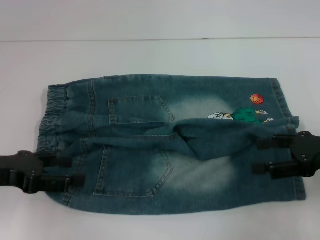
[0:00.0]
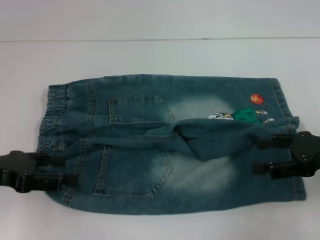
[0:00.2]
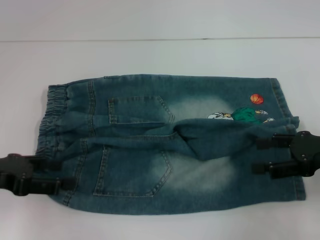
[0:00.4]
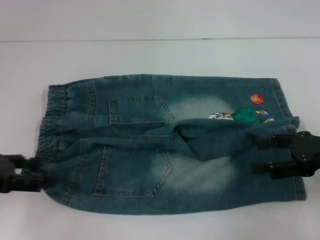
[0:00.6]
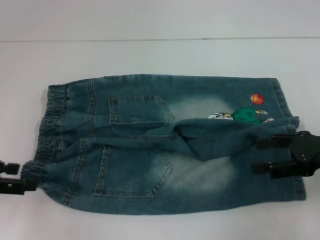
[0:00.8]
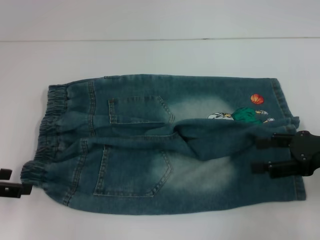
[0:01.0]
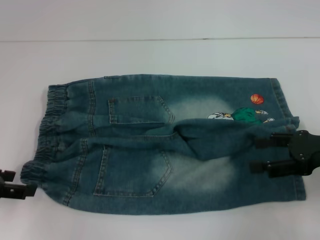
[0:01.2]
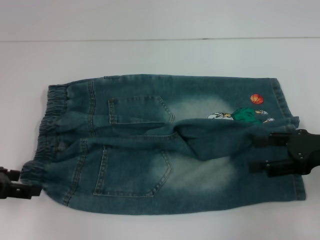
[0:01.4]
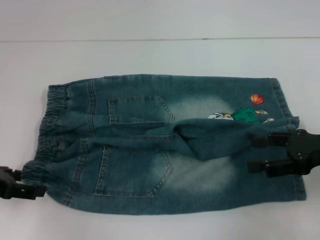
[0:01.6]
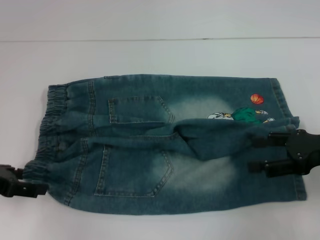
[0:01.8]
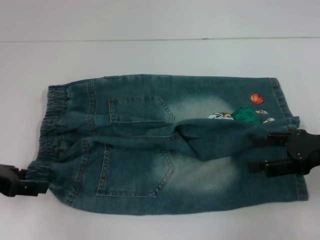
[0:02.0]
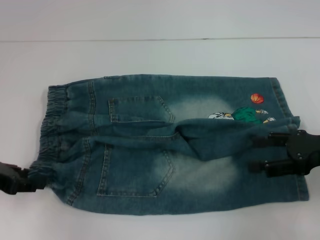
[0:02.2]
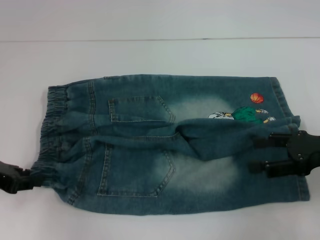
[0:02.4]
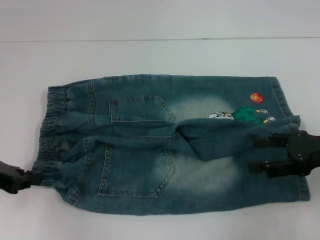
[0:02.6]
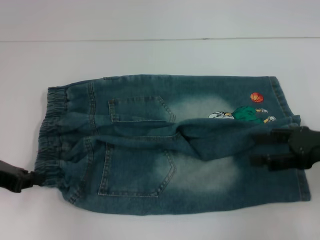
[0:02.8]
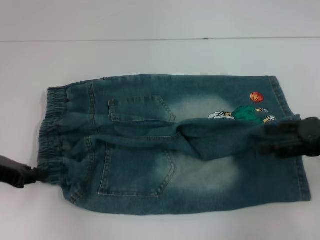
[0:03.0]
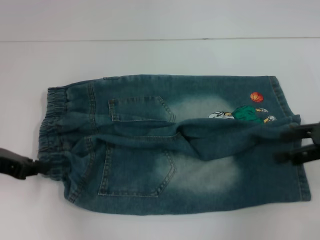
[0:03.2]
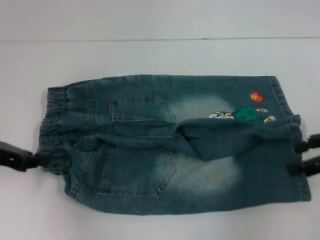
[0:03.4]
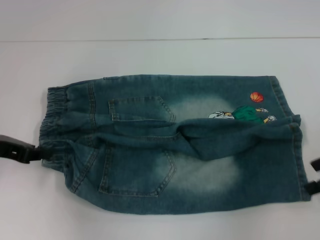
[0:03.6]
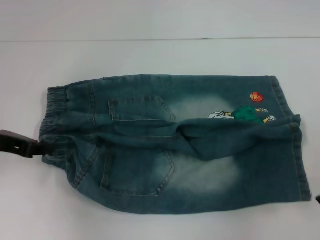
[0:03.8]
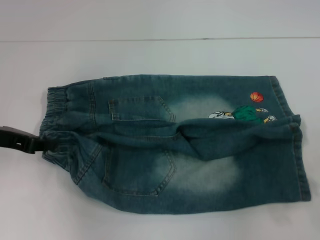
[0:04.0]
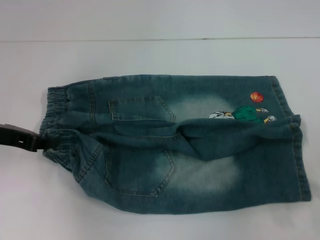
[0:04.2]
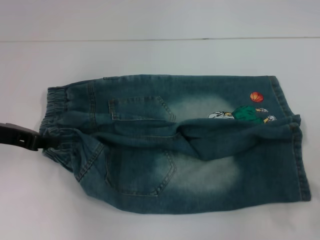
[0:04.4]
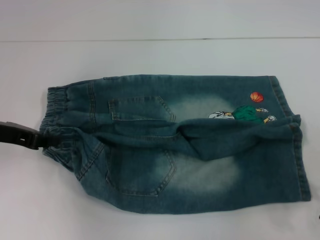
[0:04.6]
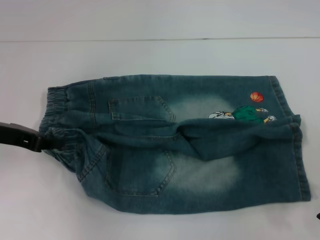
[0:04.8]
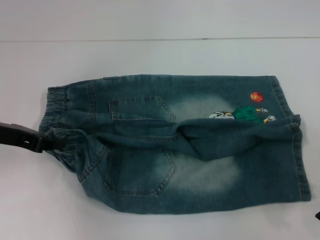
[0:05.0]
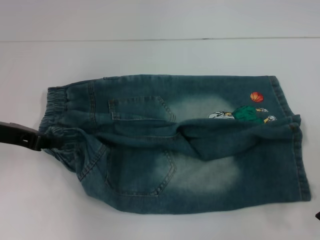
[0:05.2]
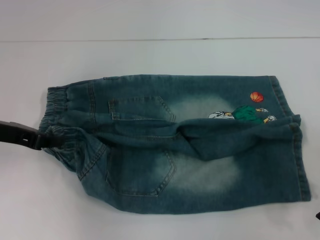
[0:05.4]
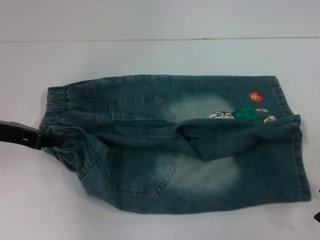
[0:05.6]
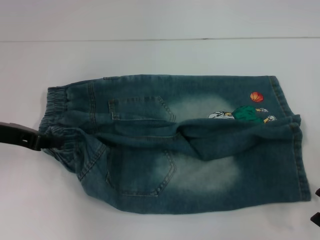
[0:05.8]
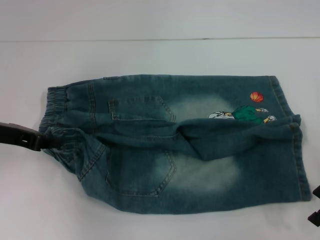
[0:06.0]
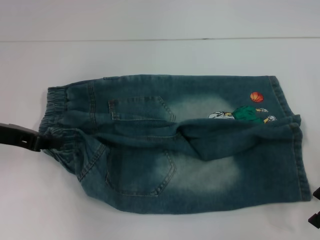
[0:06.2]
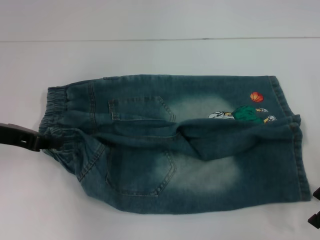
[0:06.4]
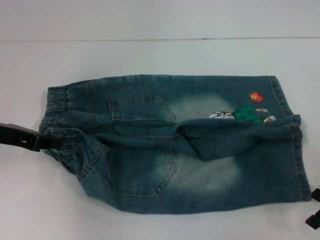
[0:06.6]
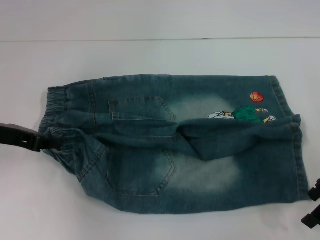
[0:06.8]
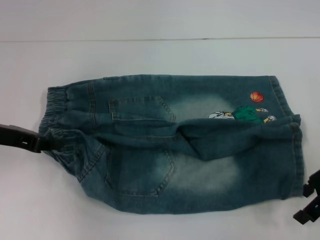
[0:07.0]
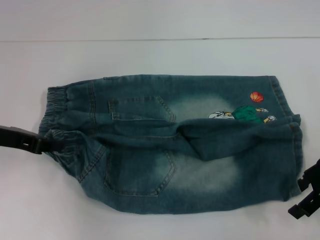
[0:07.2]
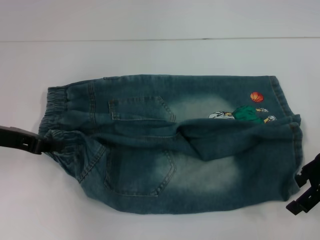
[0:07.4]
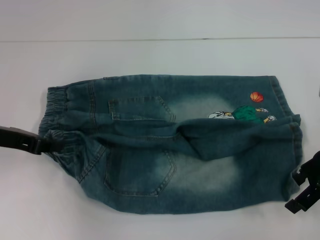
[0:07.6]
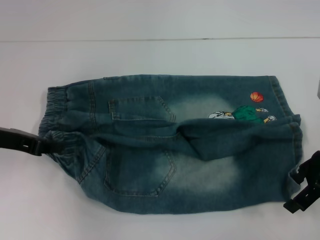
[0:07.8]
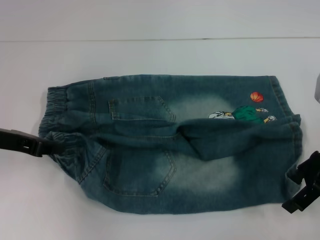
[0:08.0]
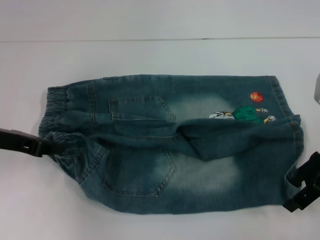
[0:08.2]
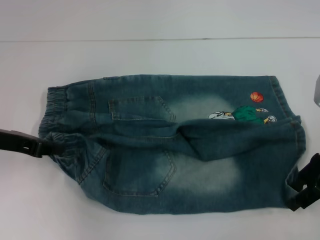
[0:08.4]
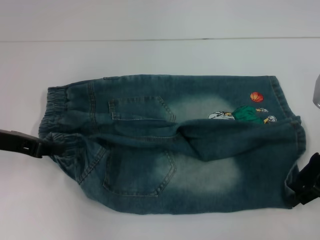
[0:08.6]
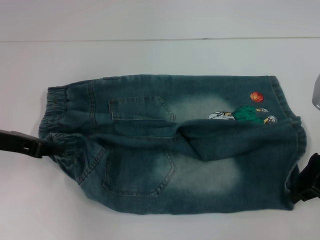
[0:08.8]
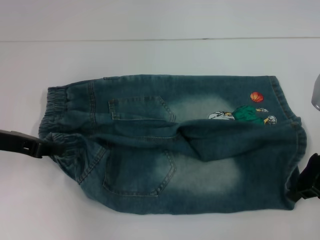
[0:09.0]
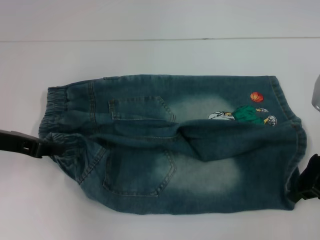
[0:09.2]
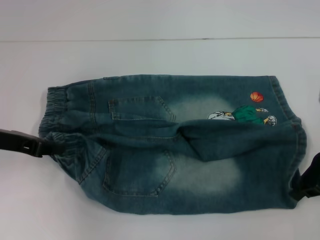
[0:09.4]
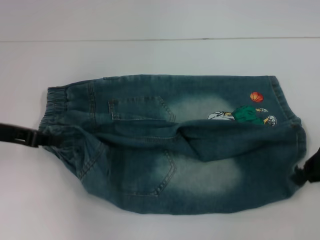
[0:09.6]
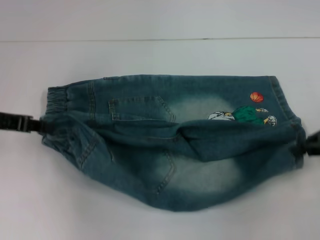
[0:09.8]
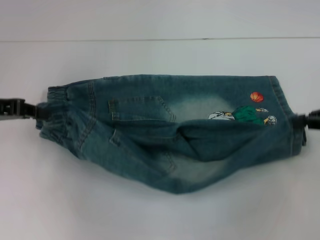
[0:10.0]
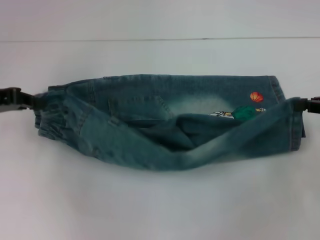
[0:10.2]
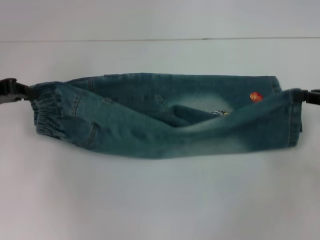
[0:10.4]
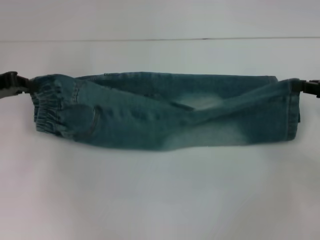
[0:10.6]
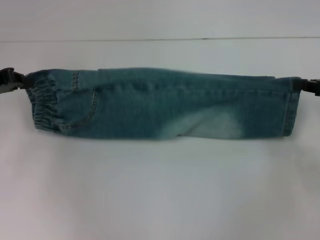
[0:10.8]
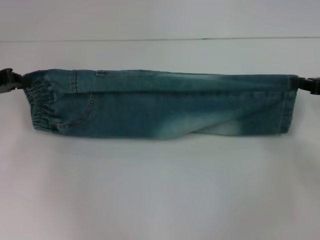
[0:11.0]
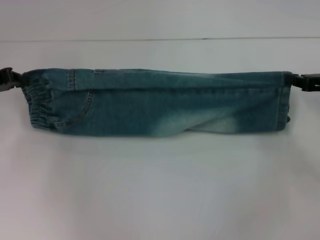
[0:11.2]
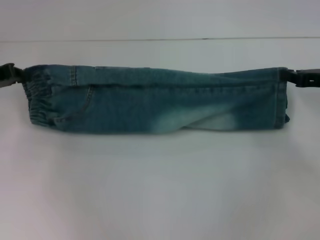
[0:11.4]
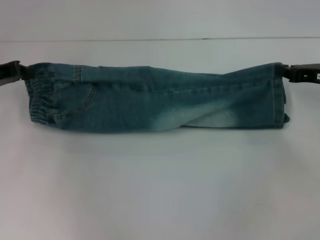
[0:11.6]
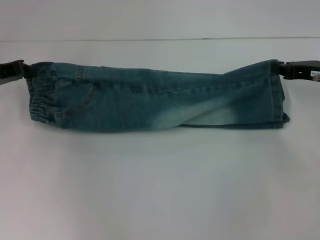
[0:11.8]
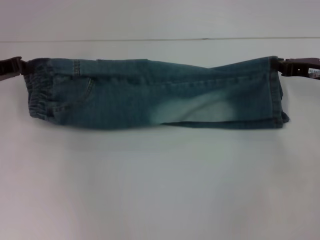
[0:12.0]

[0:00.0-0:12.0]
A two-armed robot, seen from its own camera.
Step, 0:00.0 to 0:02.4: Hold the lower left waistband with your left hand.
Step, 0:02.6 to 0:08.6: Grab the lower right pant leg with your right hand.
0:01.6 to 0:03.0: The left gripper closes up.
0:03.0 to 0:04.4: The left gripper ends up roughly 5 cm from where it was.
0:06.0 to 0:07.6: There are only small adjustments of the grippers.
0:07.6 to 0:09.0: The right gripper closes up.
0:09.0 to 0:10.4: The left gripper changes place by roughly 5 cm. Meanwhile the right gripper heads to the right, covering some 10 cm.
0:10.4 to 0:12.0: The right gripper travels forward and to the left by some 10 cm, while the left gripper ends up approximately 5 cm from where it was.

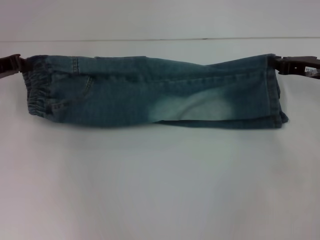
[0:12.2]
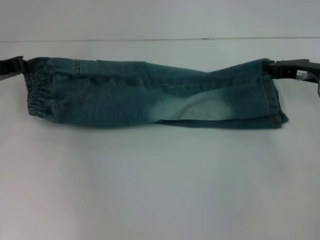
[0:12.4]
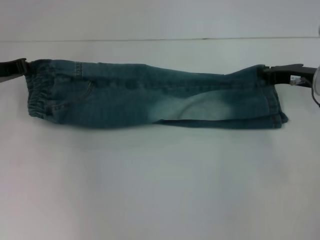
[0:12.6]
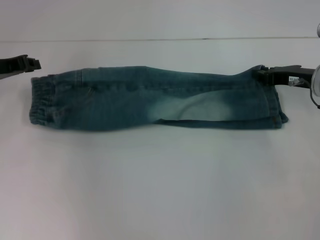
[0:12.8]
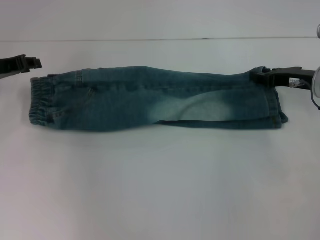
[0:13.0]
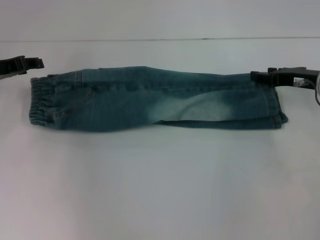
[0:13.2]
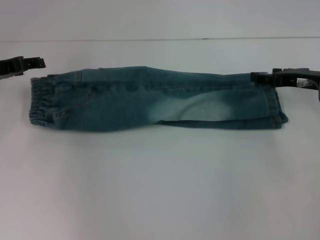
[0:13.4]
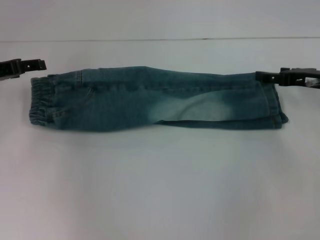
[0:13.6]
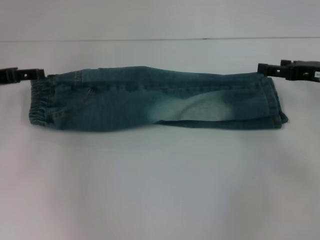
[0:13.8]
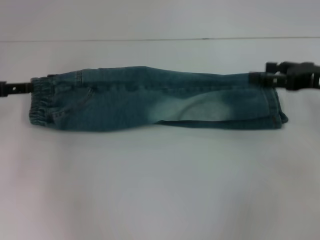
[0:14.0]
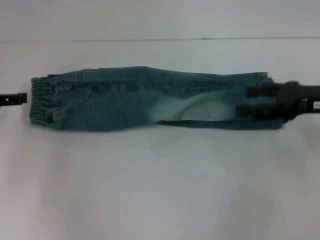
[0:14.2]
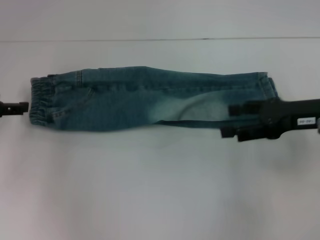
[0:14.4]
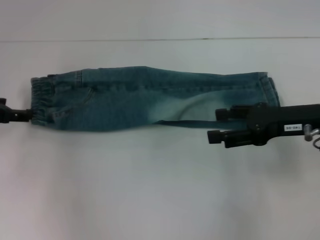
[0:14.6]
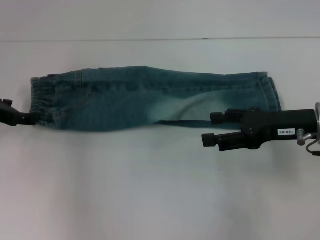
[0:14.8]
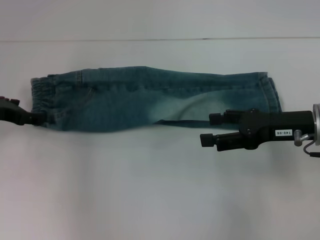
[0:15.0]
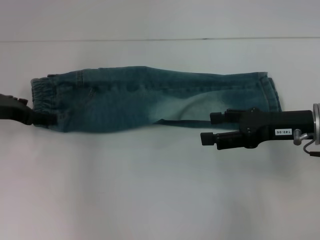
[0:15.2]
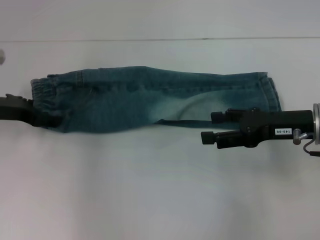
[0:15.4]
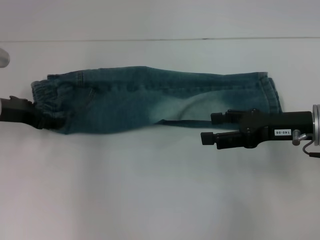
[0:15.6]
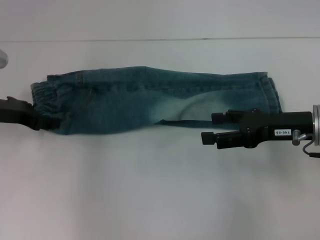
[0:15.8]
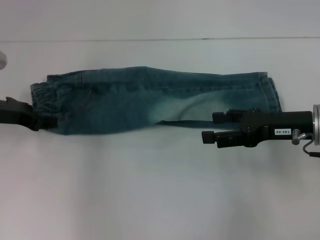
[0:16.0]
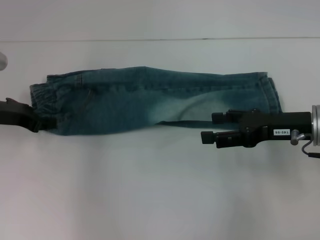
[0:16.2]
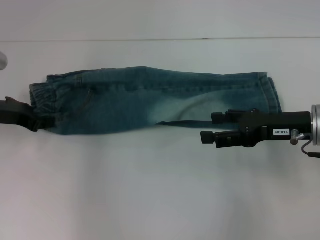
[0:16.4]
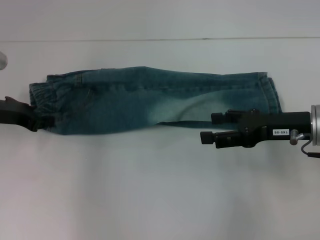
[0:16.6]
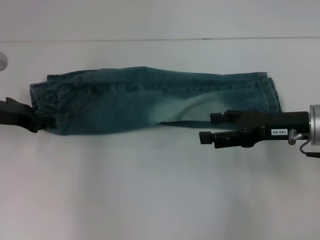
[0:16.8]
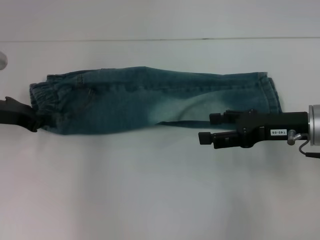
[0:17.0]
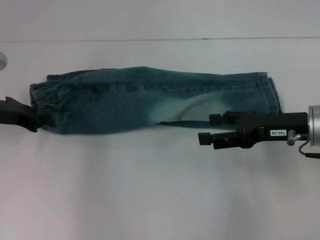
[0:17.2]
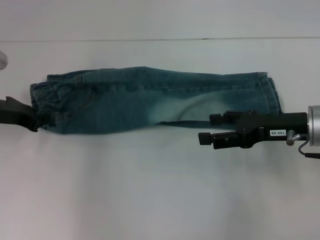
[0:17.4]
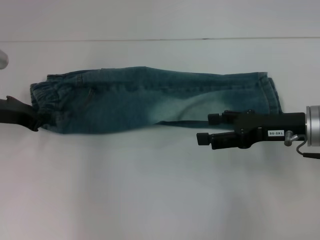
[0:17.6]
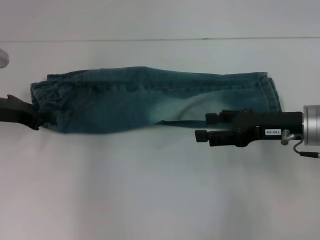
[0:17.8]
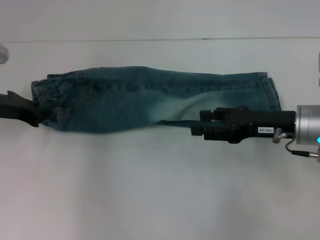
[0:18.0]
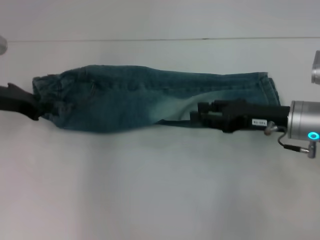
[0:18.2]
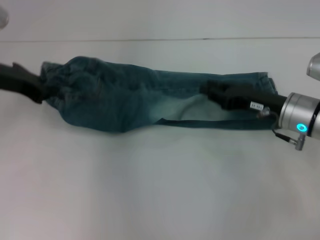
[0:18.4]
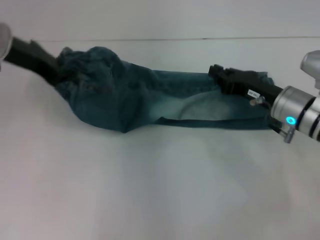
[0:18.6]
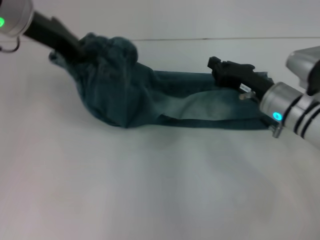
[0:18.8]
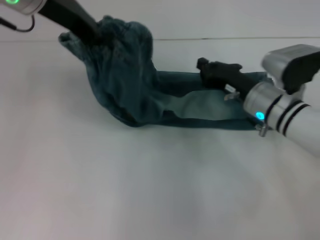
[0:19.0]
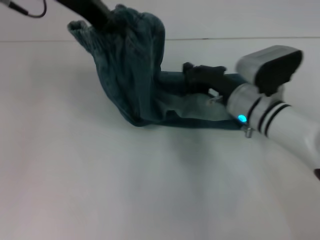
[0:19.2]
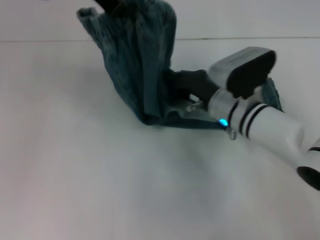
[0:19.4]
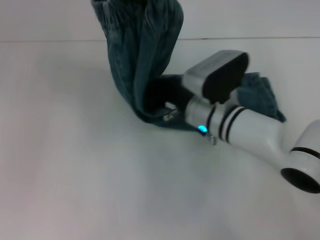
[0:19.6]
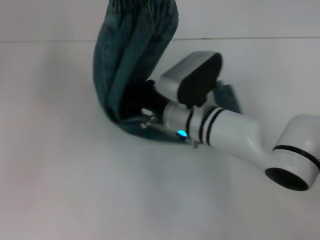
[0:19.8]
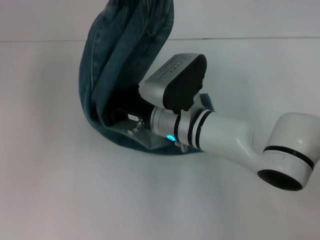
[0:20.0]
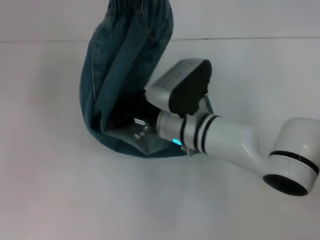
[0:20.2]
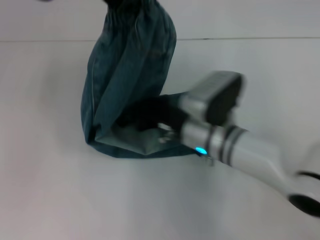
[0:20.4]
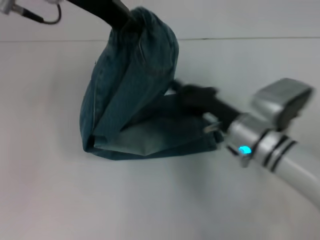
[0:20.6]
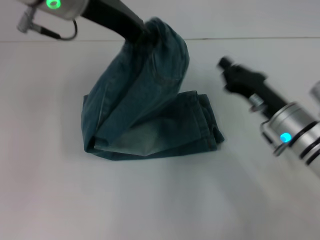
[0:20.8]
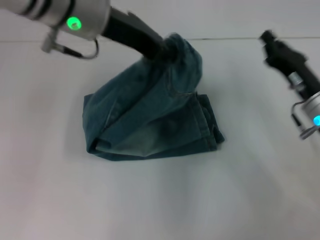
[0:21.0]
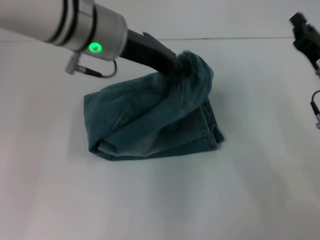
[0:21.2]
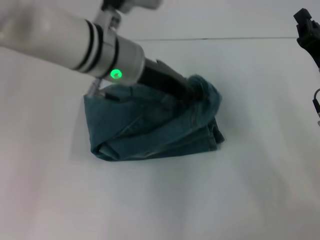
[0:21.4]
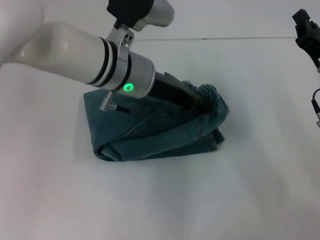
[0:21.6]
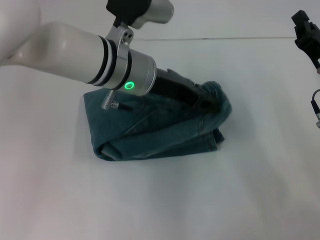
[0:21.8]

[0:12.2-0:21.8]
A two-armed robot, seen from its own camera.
Step, 0:13.2 to 0:16.4: Grab the waistband with your right hand.
Step, 0:16.8 to 0:20.2: Press the middle of the pants with your left hand.
Step, 0:20.4 to 0:21.8: Fold to the left with your right hand.
0:12.2 to 0:13.8: The left gripper opens its fingers. Meanwhile the right gripper opens up.
0:13.8 to 0:15.4: The left gripper changes place by about 5 cm, while the right gripper heads to the left and backward, covering about 10 cm.
0:15.4 to 0:17.0: The left gripper closes its fingers.
0:17.0 to 0:18.6: The left gripper moves upward and to the right, approximately 15 cm, while the right gripper ends up approximately 5 cm from where it was, and closes.
0:18.6 to 0:20.2: The right gripper shifts roughly 20 cm to the left; the left gripper travels upward and to the right by about 15 cm.
0:20.2 to 0:21.8: The right gripper heads to the right, covering about 25 cm. The left gripper is displaced downward by approximately 20 cm, and opens up.
